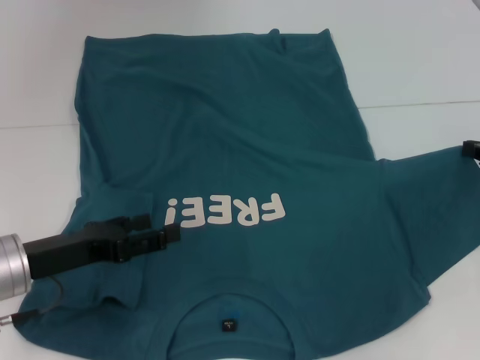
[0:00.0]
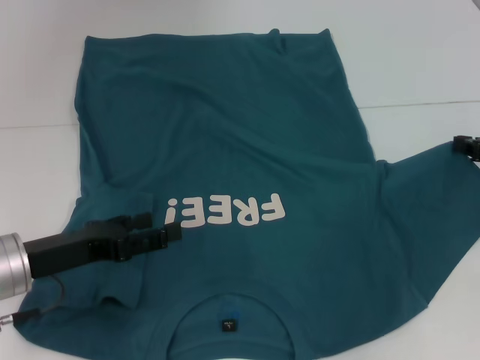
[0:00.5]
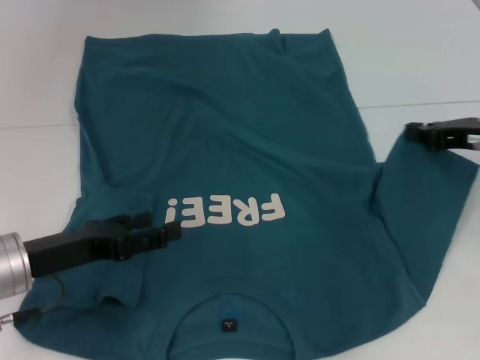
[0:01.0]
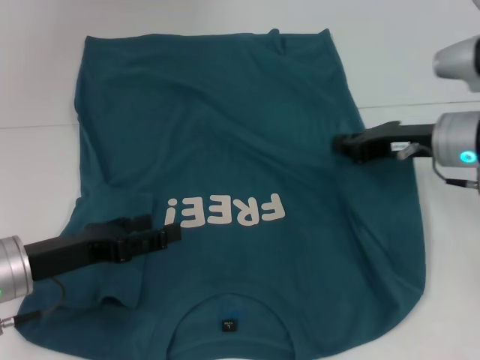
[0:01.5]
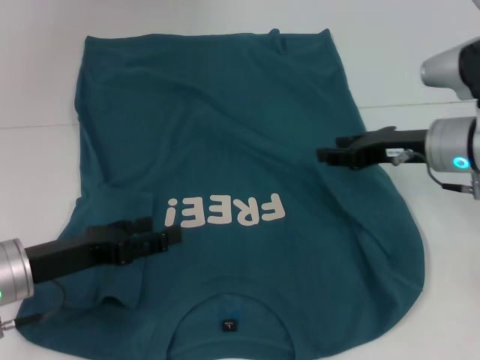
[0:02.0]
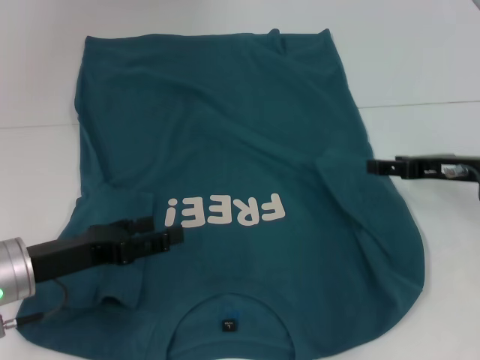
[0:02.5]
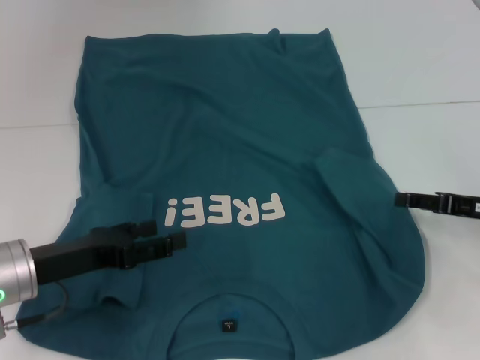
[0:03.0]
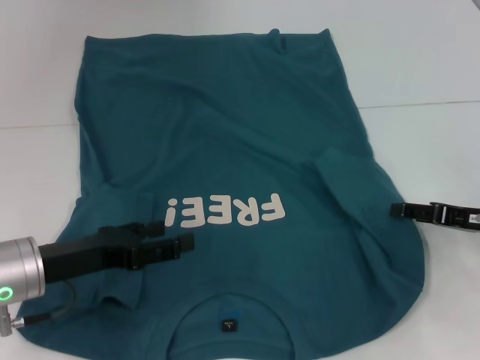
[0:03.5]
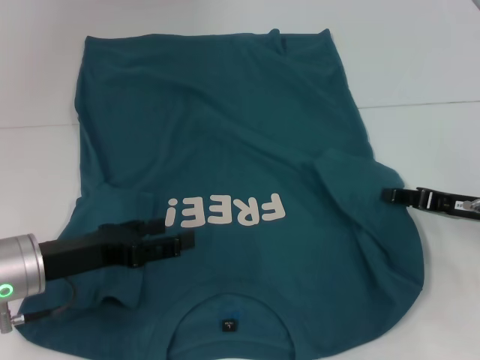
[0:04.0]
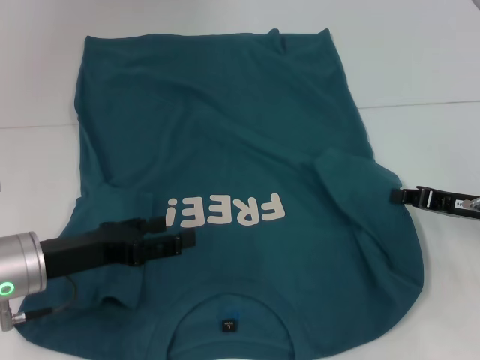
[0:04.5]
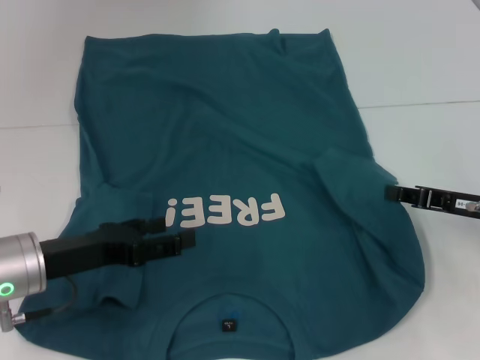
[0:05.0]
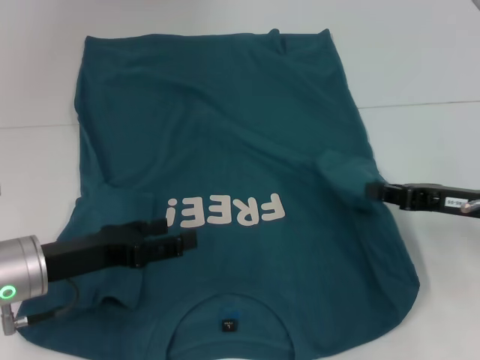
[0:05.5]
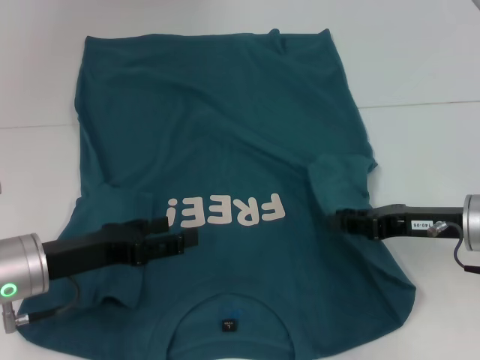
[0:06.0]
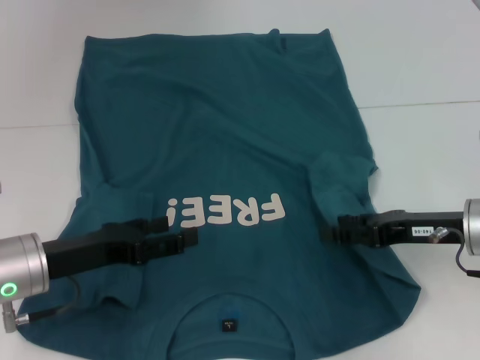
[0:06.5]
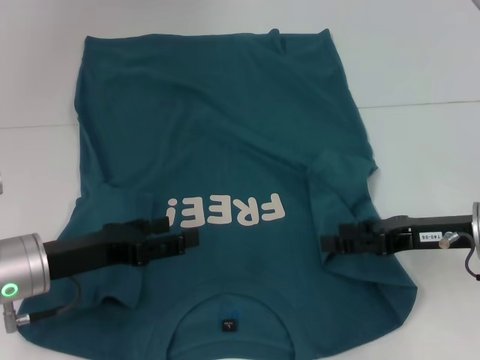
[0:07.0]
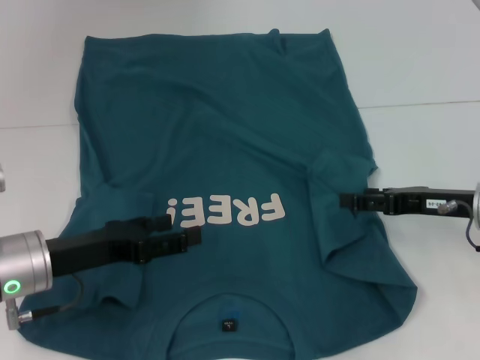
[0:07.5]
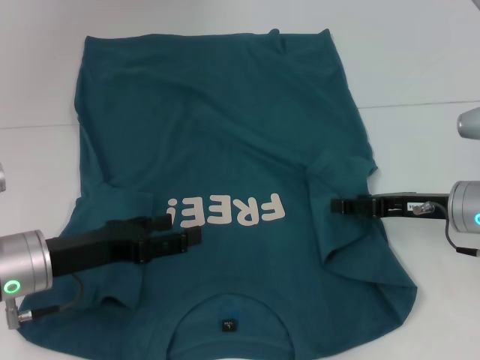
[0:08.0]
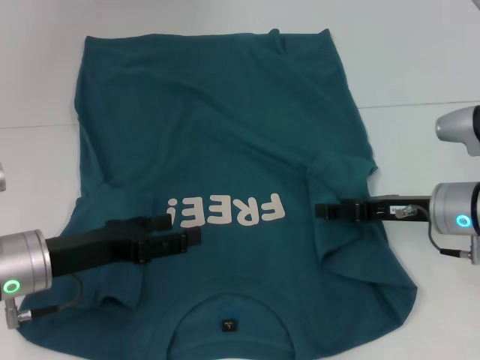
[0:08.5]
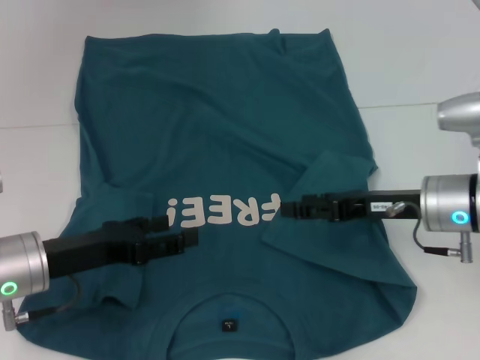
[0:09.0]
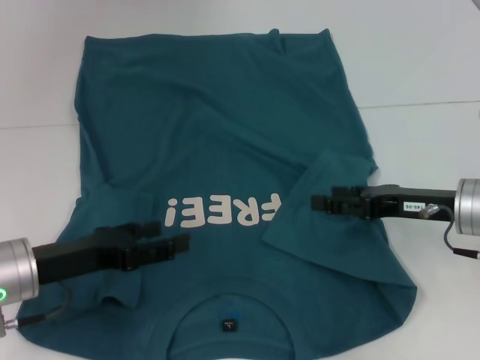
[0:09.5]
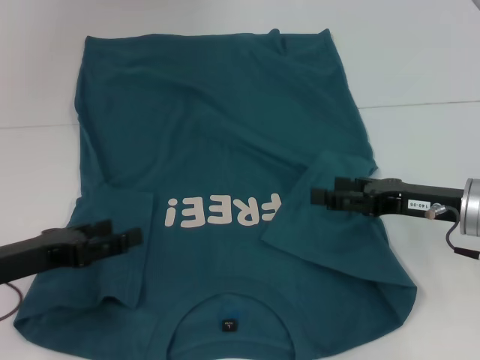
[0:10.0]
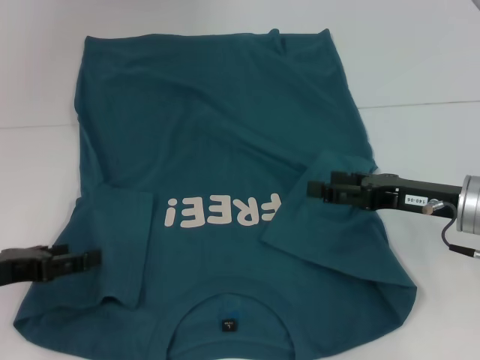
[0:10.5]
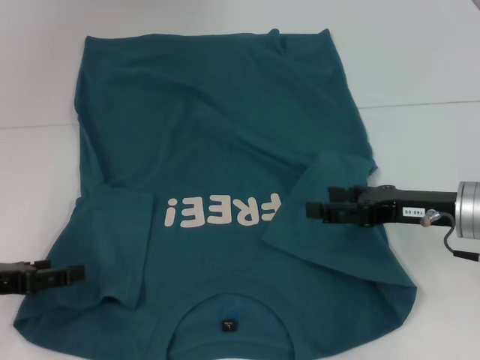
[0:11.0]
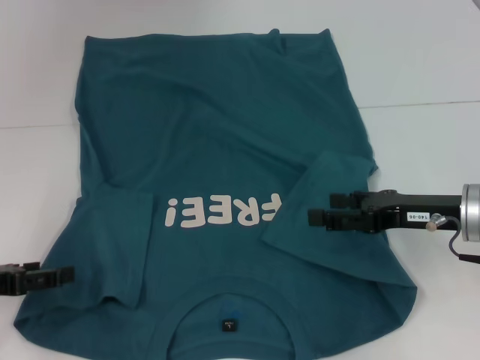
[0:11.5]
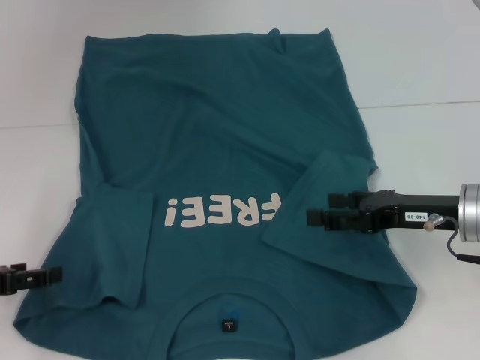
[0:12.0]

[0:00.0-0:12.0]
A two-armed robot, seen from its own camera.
Step, 0:00.0 to 0:09.0: Fold the bottom right sleeve to the right.
0:00.0 to 0:02.0: The right gripper heads to the left, covering some 15 cm.
0:02.0 to 0:04.0: The right gripper heads to the right, backward and downward, covering approximately 10 cm, and opens.
0:04.0 to 0:06.0: The right gripper changes place by some 5 cm, and closes.
0:06.0 to 0:08.0: The right gripper opens up.
0:08.0 to 0:10.0: The left gripper heads to the left, covering roughly 5 cm.
0:10.0 to 0:12.0: The left gripper goes some 5 cm to the left.

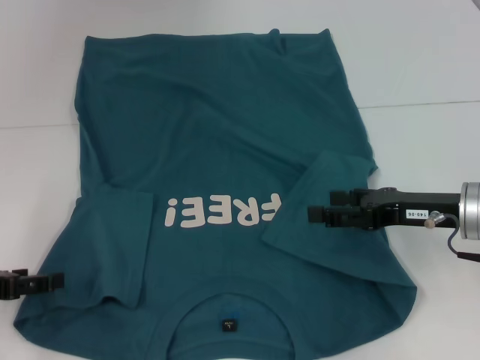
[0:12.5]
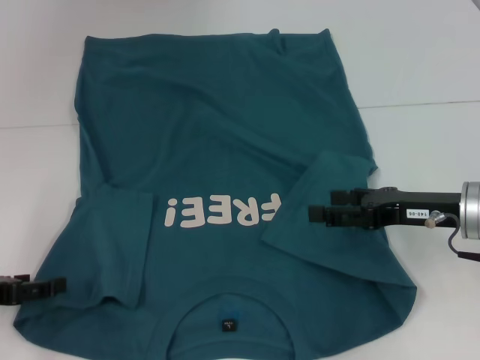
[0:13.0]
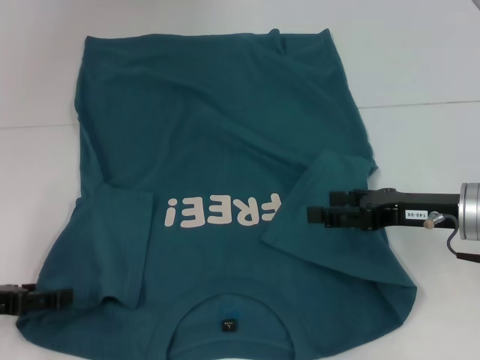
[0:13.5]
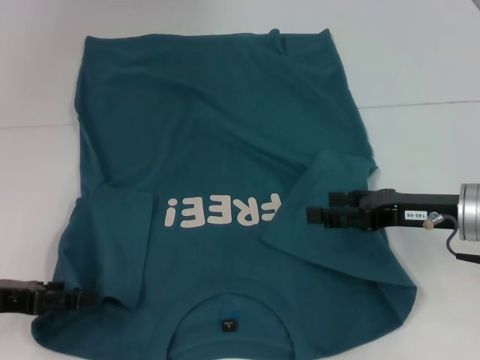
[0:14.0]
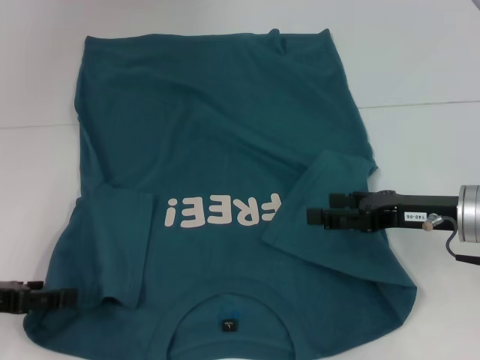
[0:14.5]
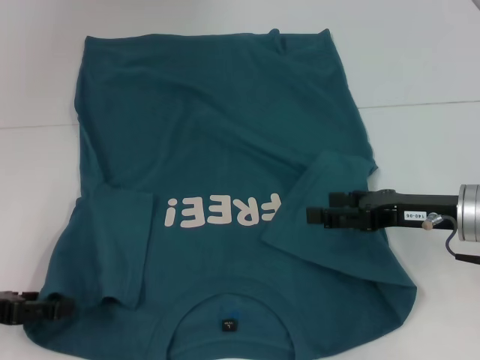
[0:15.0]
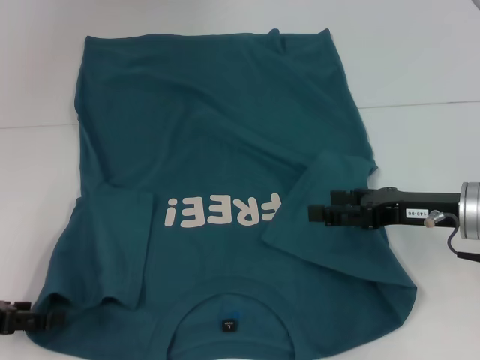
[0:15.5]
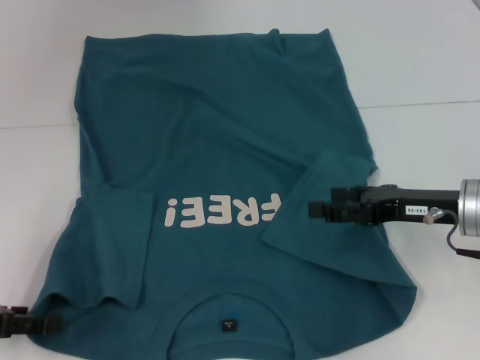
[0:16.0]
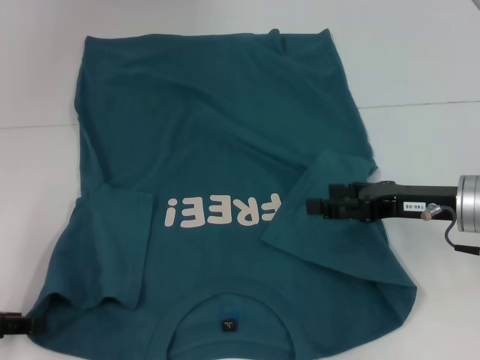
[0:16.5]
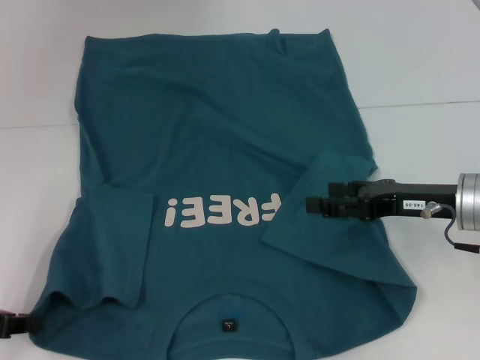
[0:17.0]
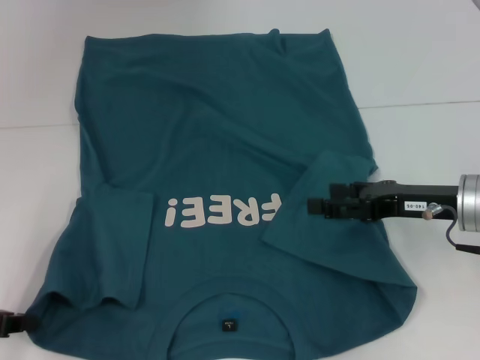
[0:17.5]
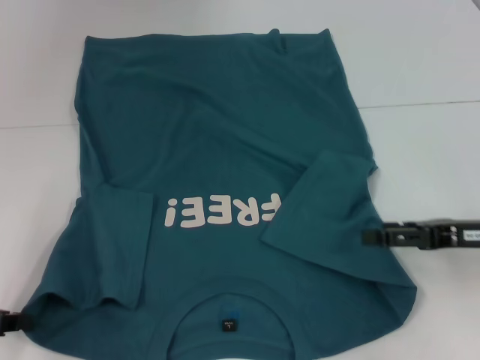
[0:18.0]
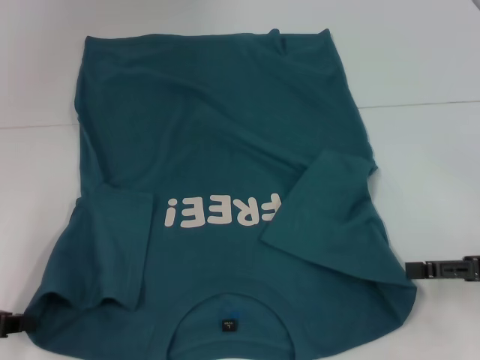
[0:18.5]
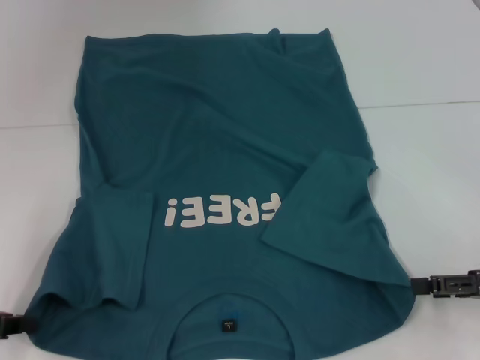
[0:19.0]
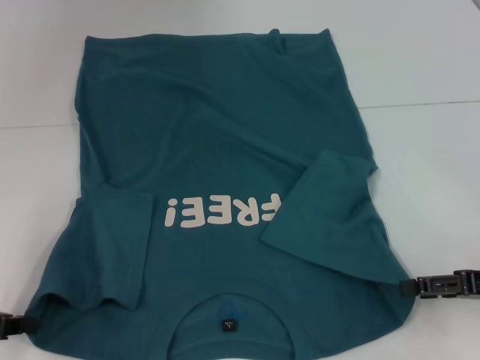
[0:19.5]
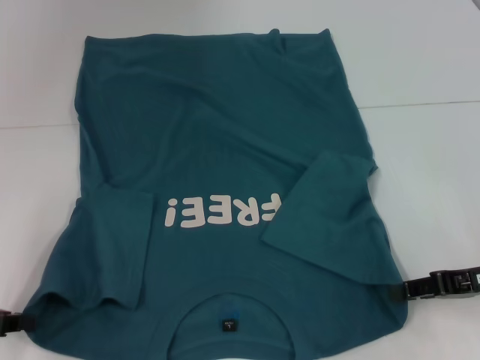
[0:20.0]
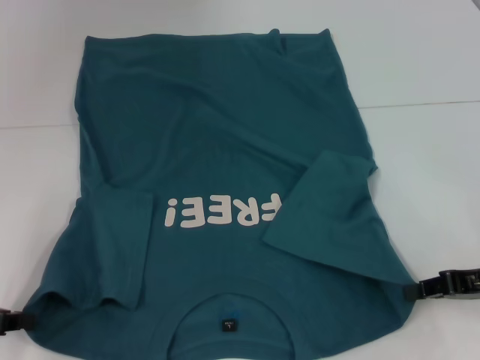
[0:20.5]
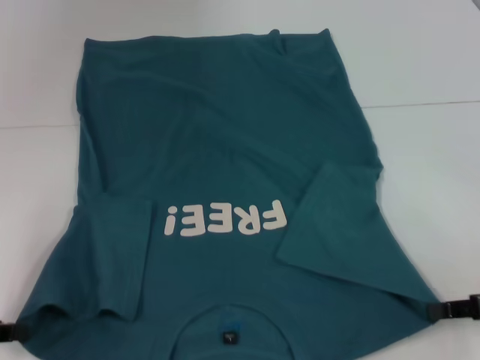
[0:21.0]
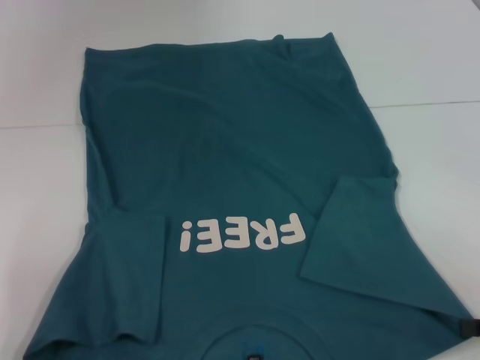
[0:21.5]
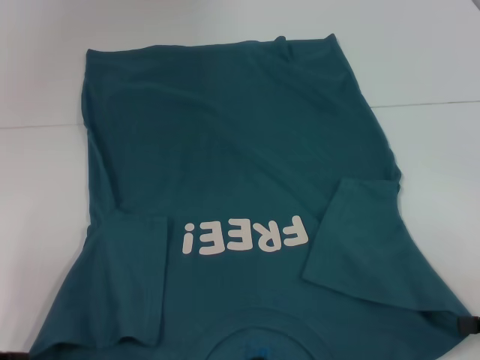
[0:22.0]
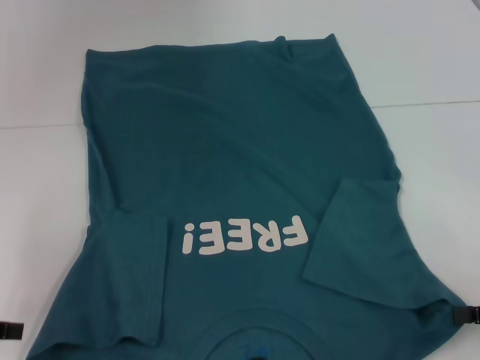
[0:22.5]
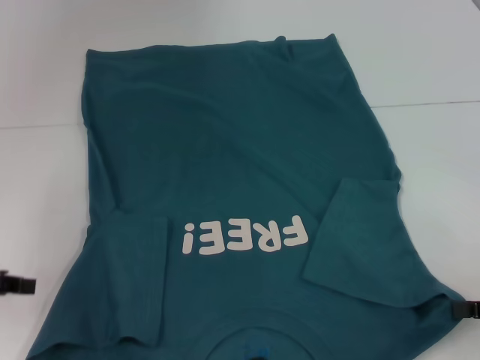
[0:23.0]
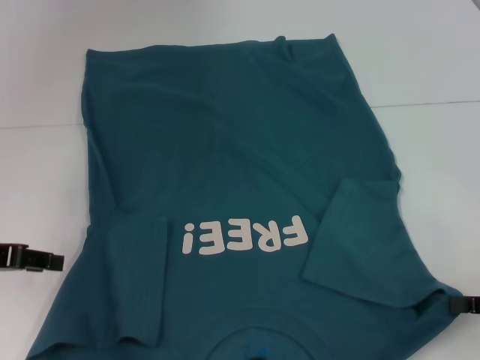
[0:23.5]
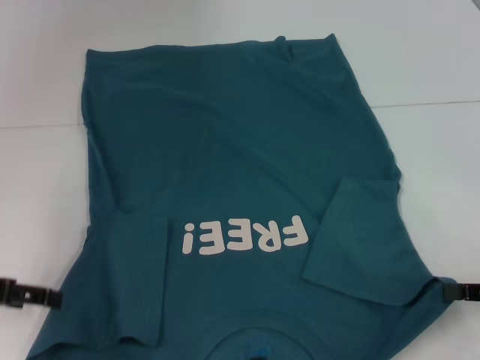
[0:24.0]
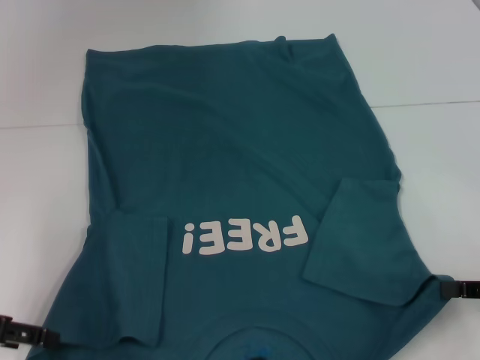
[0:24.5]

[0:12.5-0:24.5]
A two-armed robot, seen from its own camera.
Step, 0:12.5 to 0:17.0: Grab the bottom left corner with your left hand.
Step, 0:17.5 to 0:20.5: Grab the bottom right corner with your right hand.
0:12.5 to 0:16.5: There are only small adjustments of the grippers.
0:16.5 to 0:18.5: The right gripper heads to the right and backward, covering approximately 10 cm. The left gripper closes its fingers.
0:18.5 to 0:20.5: The right gripper closes its fingers.
0:20.5 to 0:22.5: The right gripper moves backward, some 5 cm.

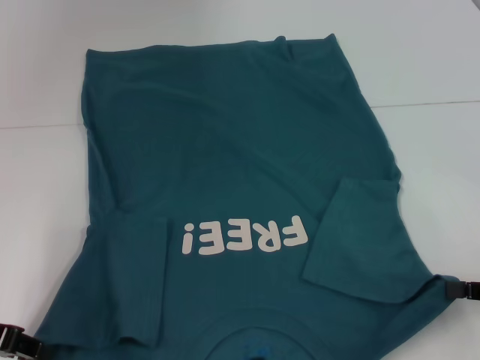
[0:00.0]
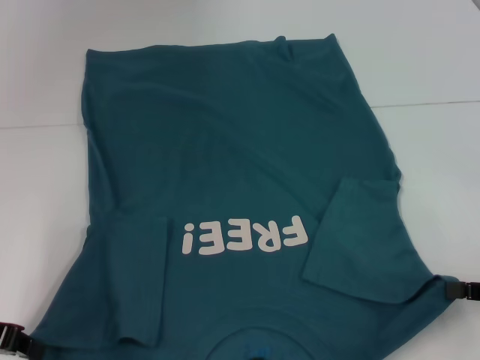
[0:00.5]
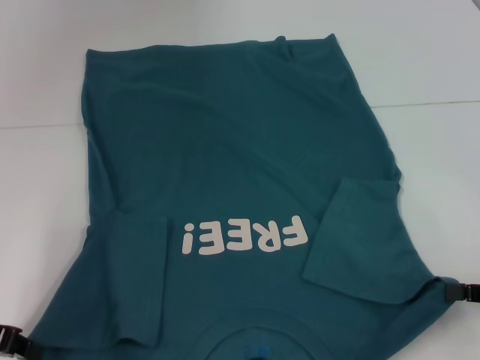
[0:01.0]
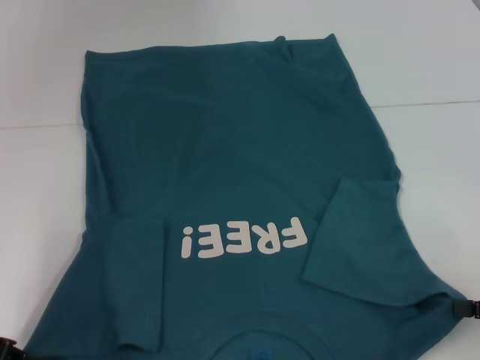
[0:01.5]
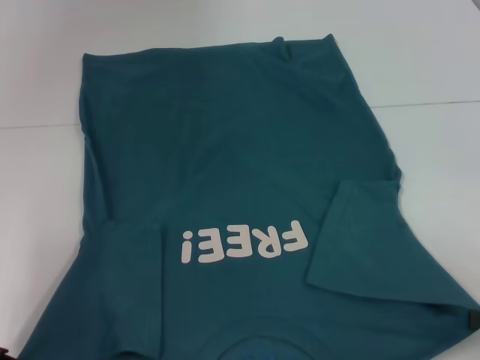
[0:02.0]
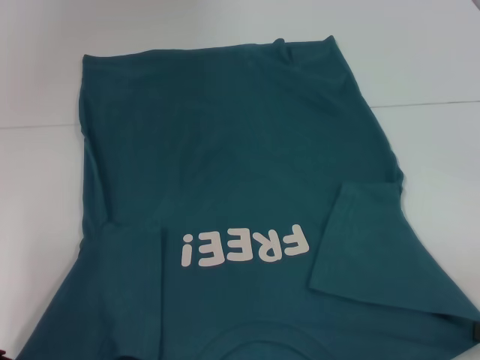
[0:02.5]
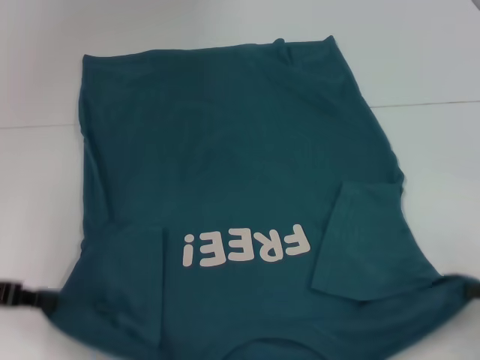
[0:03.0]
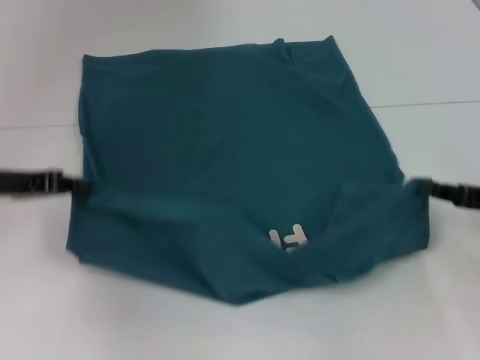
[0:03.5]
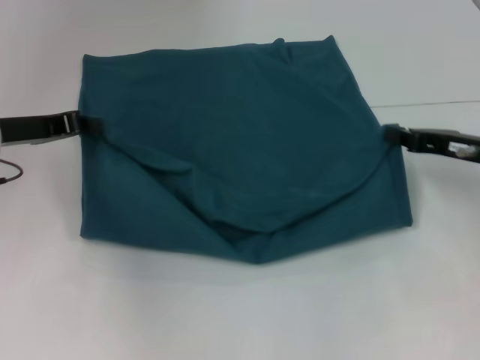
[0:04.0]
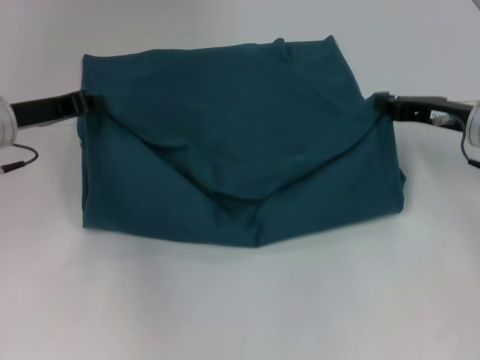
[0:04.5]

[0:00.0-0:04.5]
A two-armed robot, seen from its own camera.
0:00.0 to 0:02.0: The left gripper closes up.
0:02.0 to 0:04.5: The left gripper travels forward and to the right by some 15 cm. Meanwhile the right gripper travels forward and to the left by roughly 25 cm.
